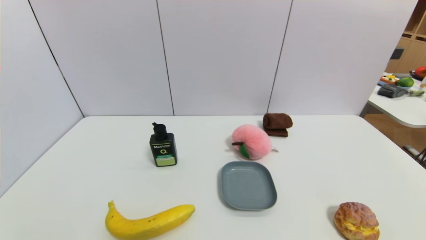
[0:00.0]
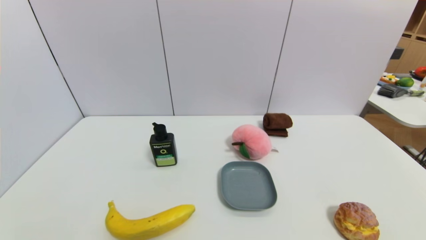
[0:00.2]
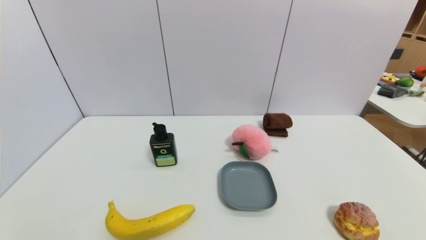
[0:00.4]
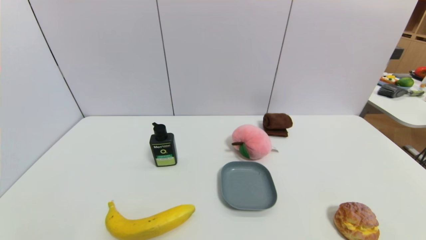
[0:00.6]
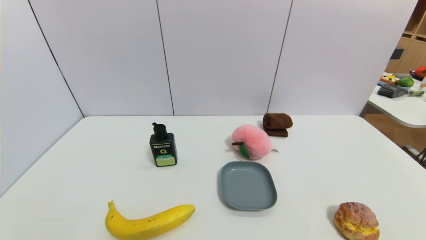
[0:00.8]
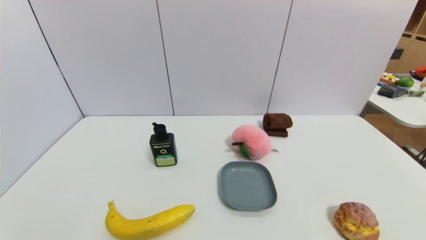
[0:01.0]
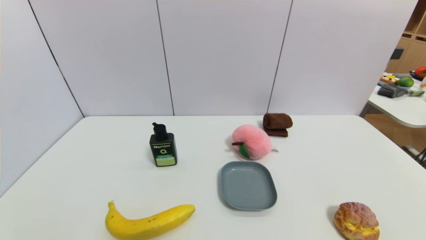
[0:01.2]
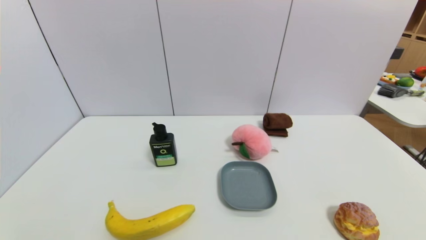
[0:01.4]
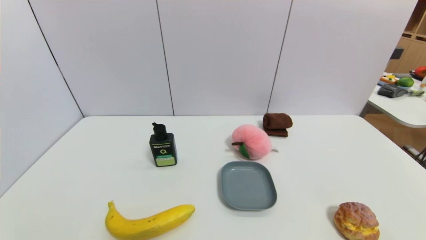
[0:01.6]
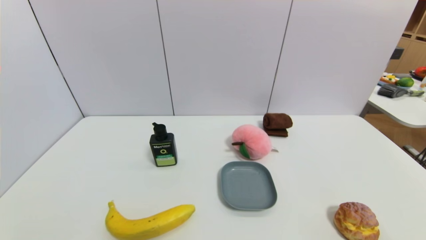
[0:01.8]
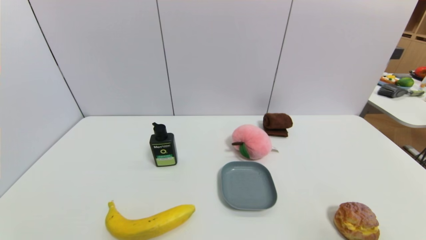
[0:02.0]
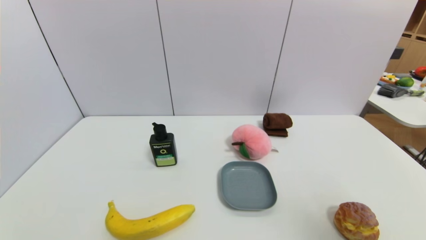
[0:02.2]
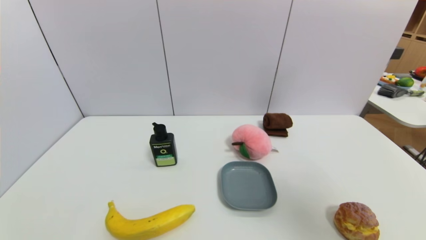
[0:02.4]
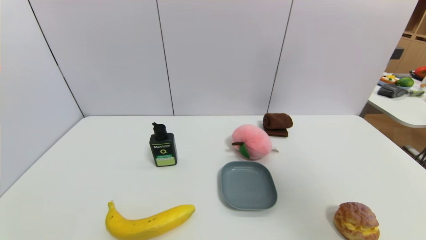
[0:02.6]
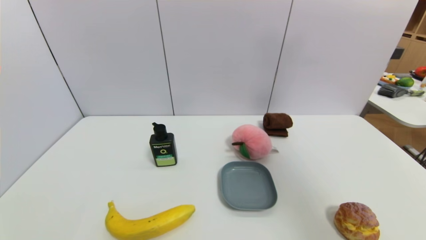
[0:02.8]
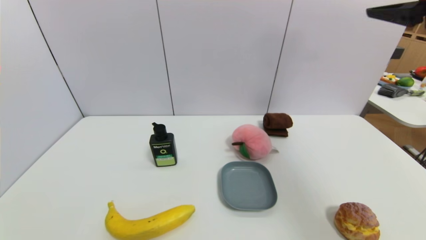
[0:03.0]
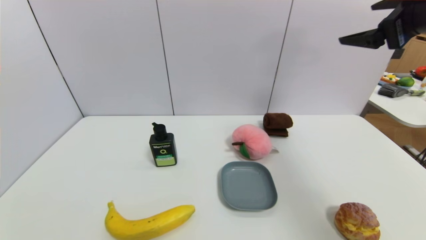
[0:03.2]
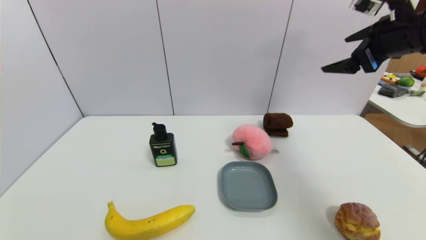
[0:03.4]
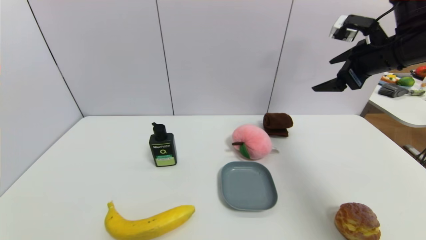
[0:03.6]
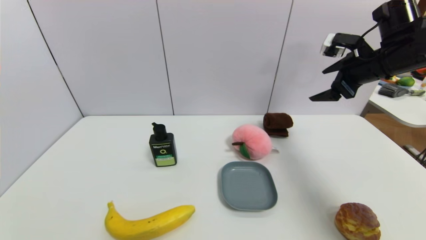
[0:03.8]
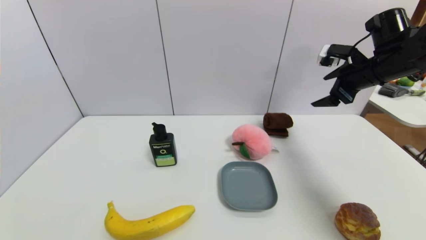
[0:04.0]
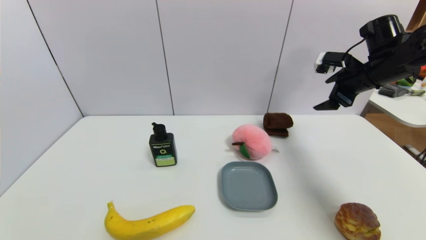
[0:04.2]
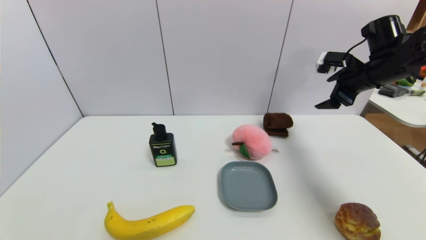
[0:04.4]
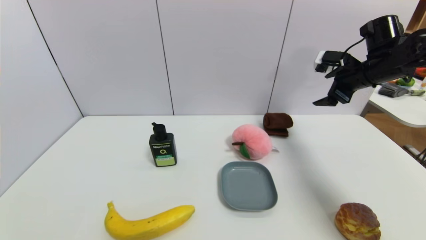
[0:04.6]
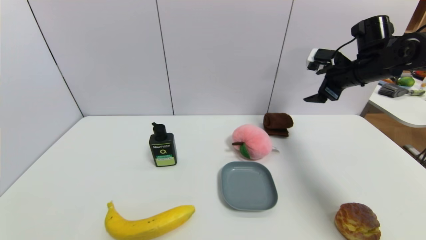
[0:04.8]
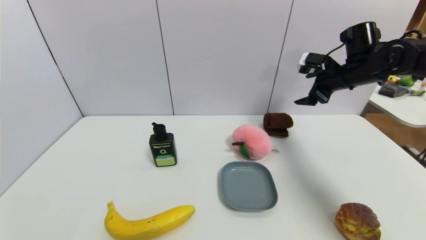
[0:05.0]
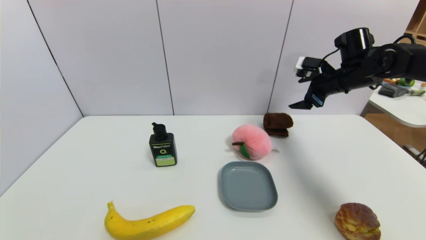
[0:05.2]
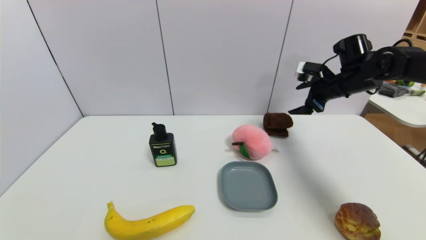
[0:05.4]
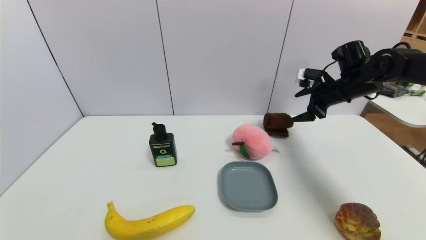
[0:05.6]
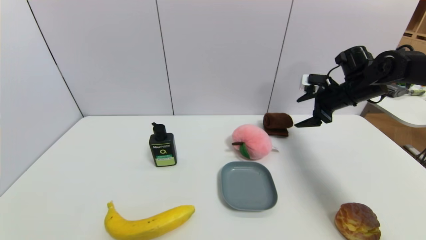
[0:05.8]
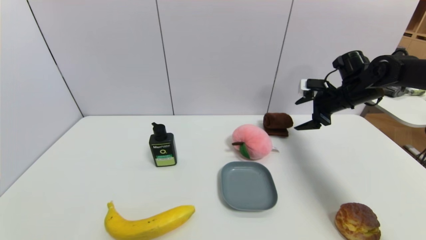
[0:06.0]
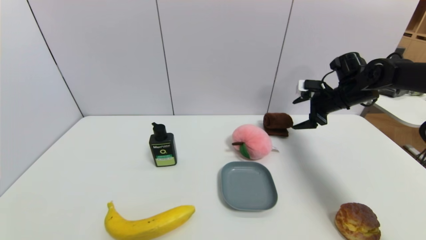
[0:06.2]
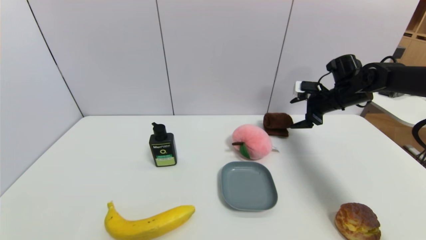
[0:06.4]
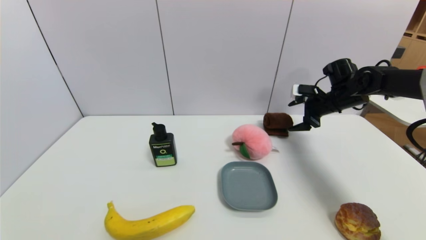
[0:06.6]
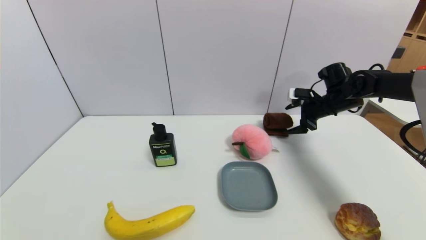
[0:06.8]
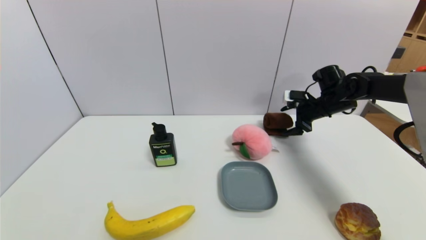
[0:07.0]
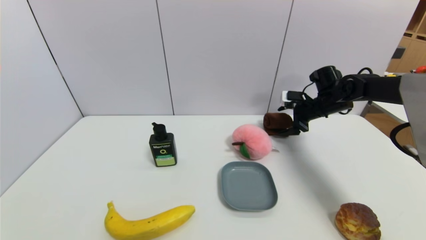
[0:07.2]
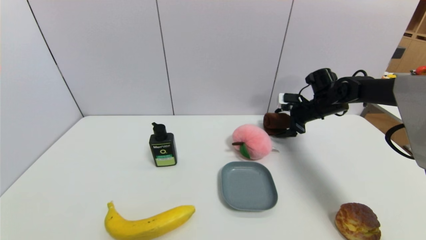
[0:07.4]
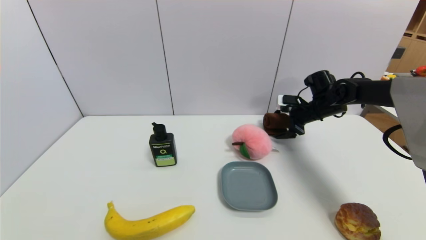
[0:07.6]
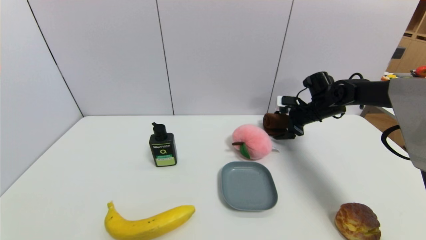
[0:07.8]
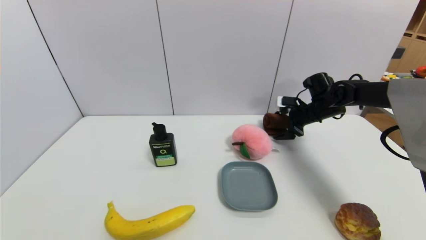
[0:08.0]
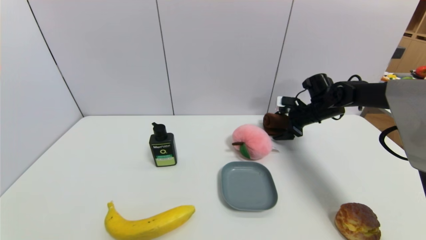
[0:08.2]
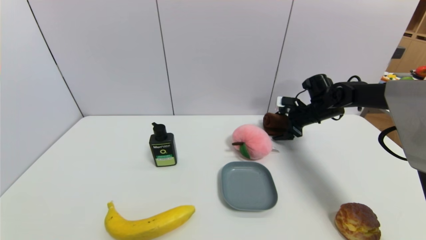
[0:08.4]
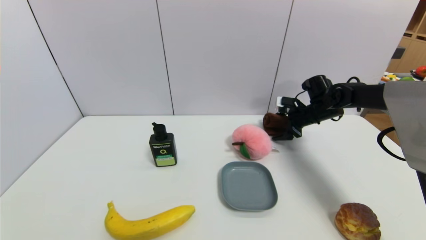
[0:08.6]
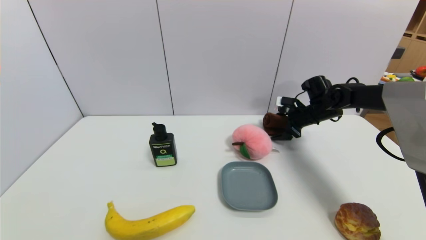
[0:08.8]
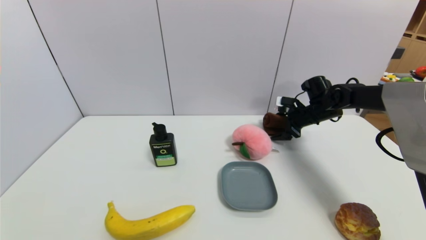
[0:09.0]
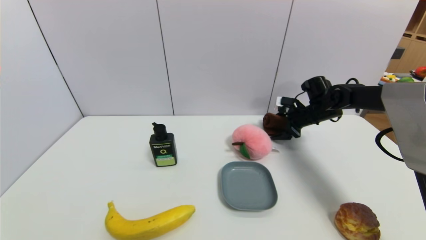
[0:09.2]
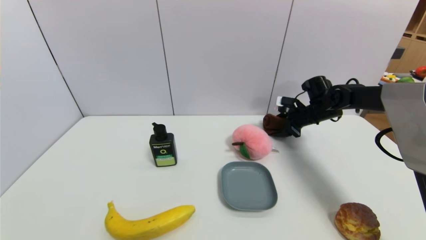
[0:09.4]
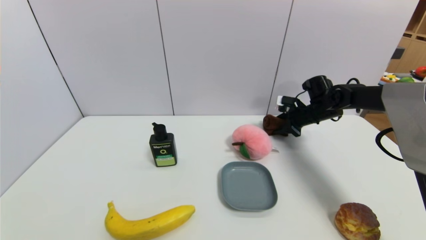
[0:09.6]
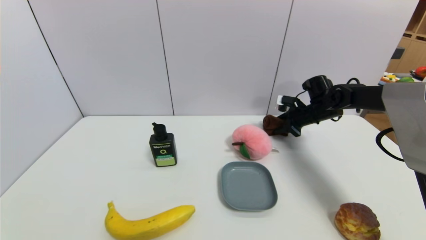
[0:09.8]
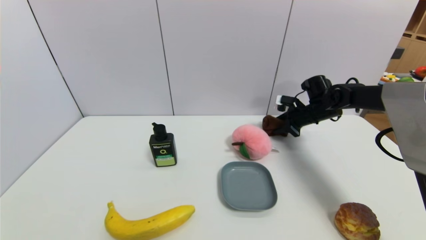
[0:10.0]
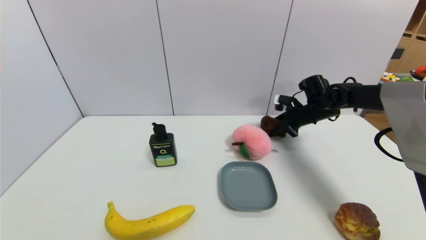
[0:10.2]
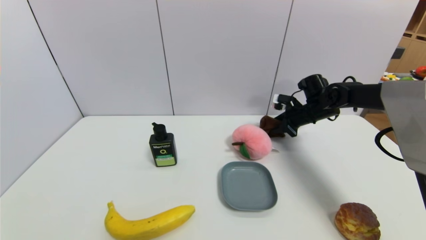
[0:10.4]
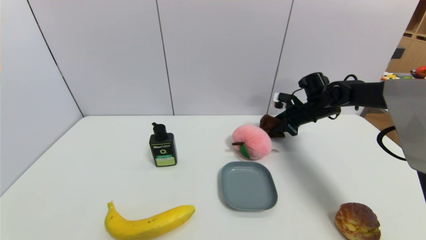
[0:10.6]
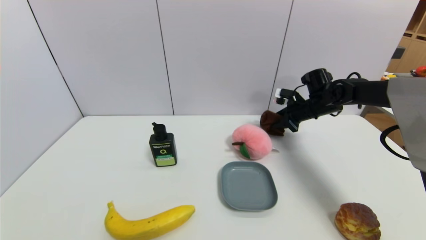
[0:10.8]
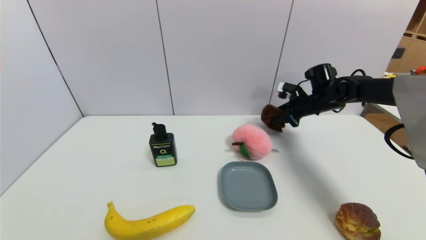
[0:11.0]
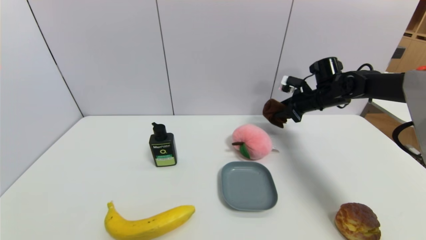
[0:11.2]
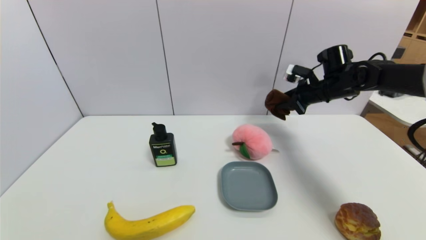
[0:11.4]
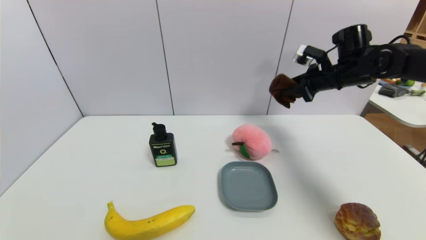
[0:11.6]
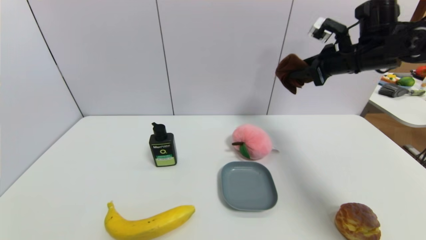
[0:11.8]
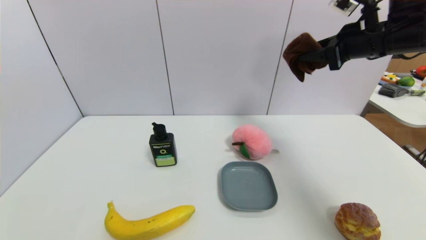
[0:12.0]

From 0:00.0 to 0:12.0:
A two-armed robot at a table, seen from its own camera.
Task of the whole recording: use a gripper to pick the target object and place on the dish.
Step, from 0:00.0 to 0:10.2: Grasp the brown towel with the right gripper.
From 0:01.6 to 0:03.0: The right gripper moves upward and forward, roughly 35 cm.
From 0:03.0 to 0:04.4: The right gripper heads forward and downward, covering about 20 cm.
From 0:04.4 to 0:06.0: The right gripper heads downward, covering approximately 5 cm.
From 0:06.0 to 0:07.6: The right gripper goes approximately 5 cm downward.
From 0:07.6 to 0:09.0: There are only small adjustments of the grippers.
From 0:09.0 to 0:10.4: The right gripper closes its fingers.
From 0:10.4 to 0:12.0: The right gripper shifts about 25 cm upward and backward.

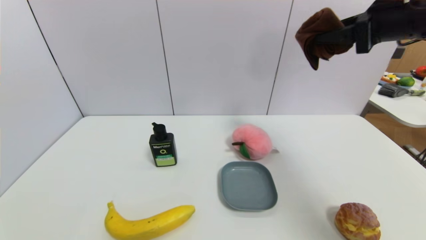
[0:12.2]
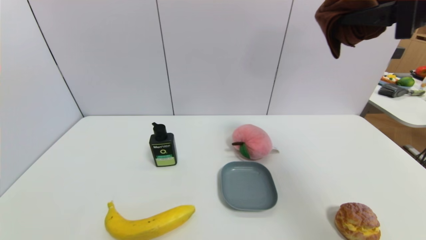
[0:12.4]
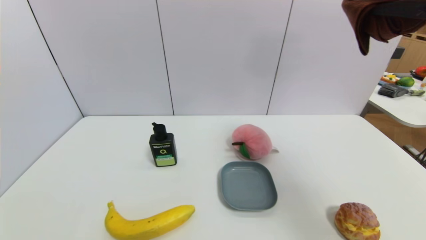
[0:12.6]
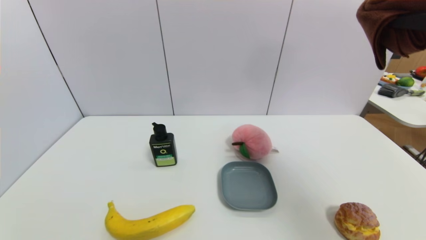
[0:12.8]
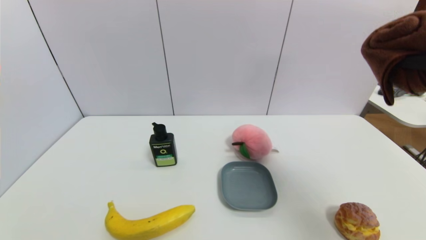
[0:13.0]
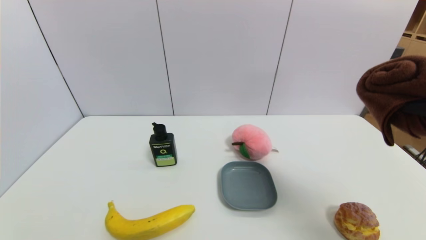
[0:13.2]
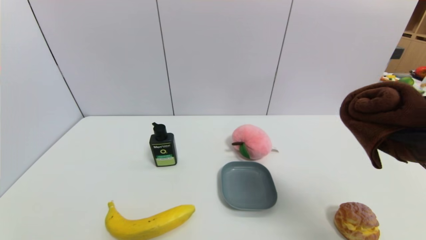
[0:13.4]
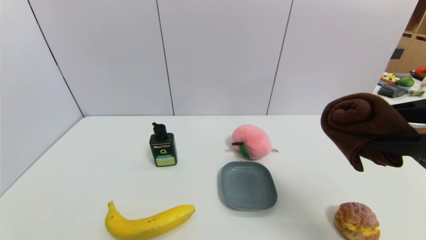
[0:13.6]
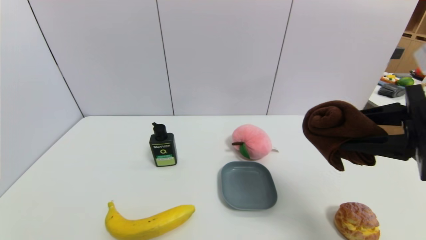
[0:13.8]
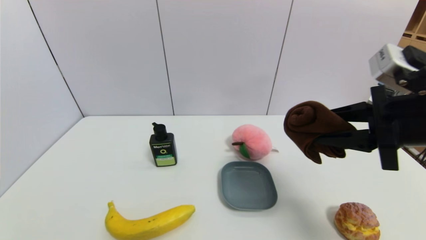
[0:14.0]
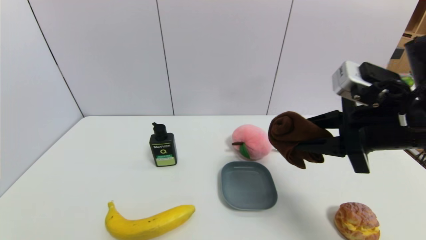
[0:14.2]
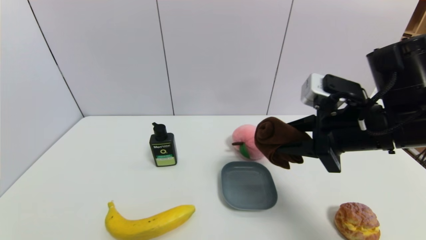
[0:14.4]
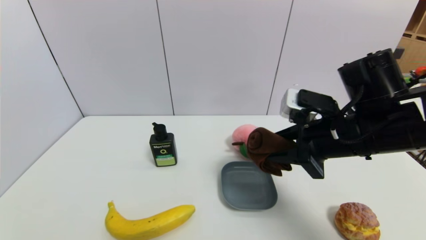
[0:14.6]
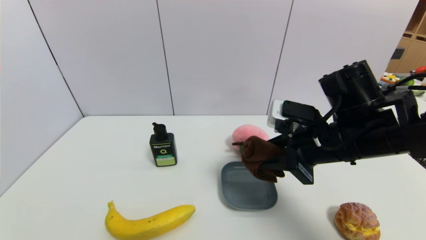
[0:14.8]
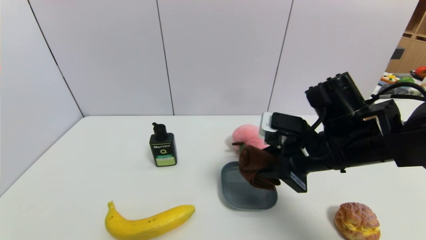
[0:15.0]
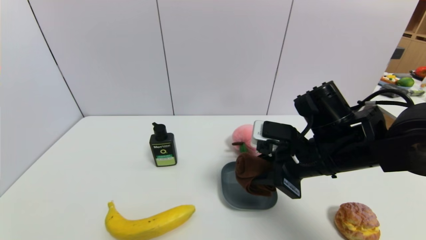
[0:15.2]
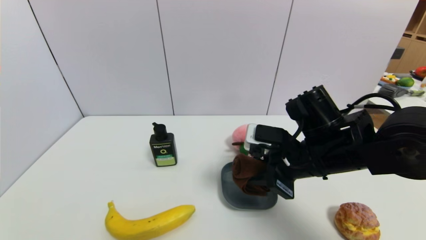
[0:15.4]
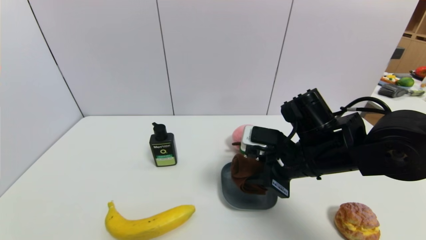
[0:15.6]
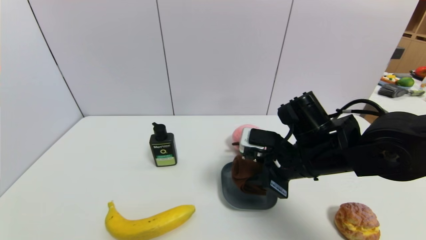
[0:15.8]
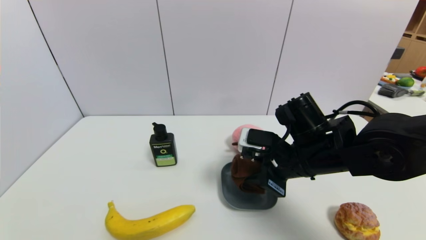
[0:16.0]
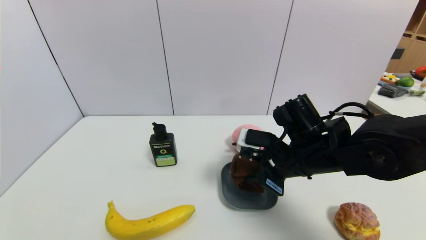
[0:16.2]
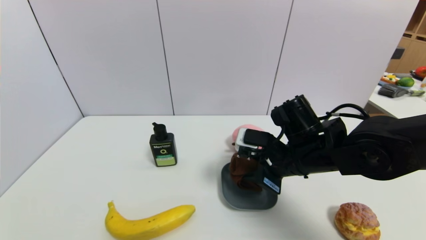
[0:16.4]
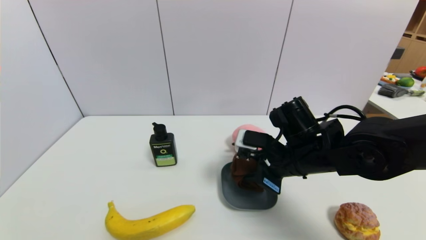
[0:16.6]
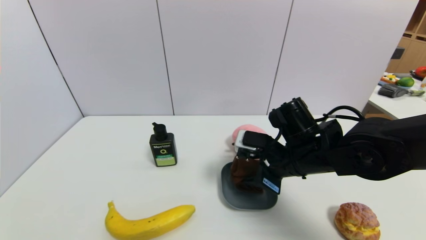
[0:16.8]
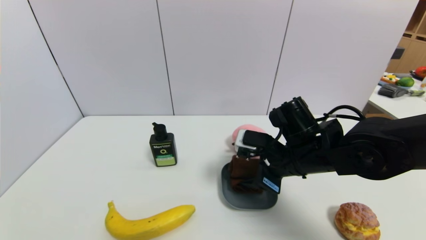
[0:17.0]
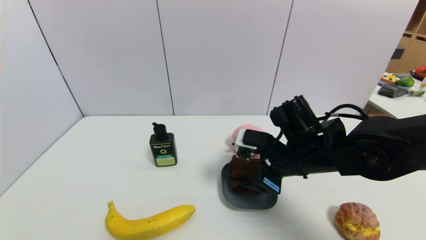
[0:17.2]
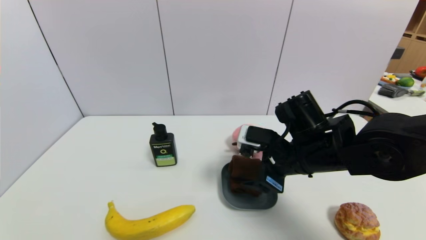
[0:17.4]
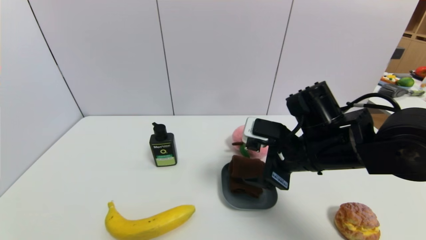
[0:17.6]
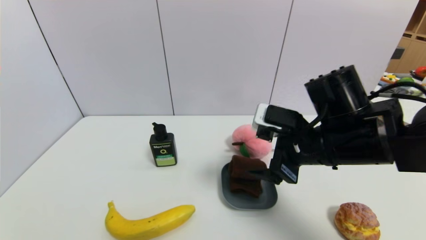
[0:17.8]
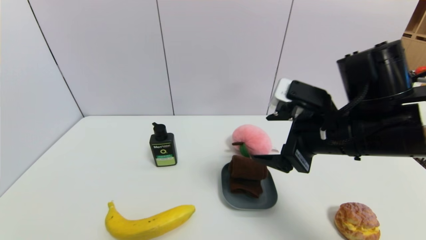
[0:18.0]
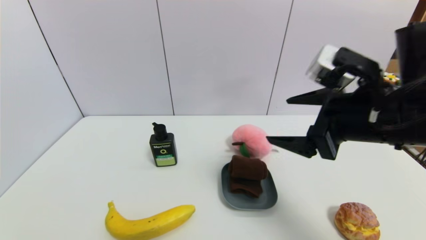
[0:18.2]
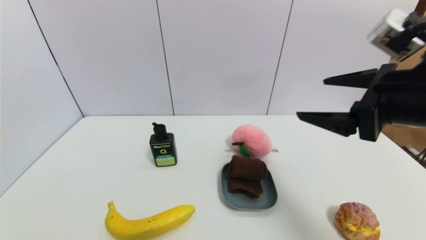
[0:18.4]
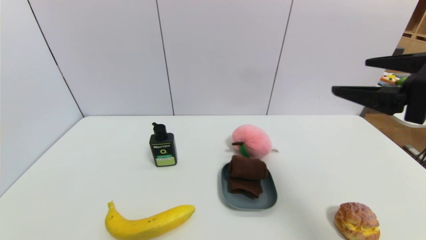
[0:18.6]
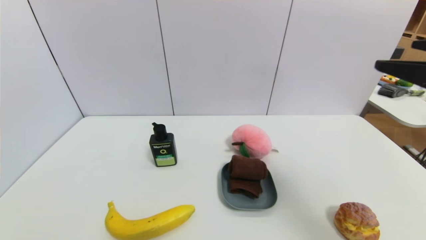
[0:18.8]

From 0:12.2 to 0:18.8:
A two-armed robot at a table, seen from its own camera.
Task of the whole recording: use a gripper to pick the target object and place on the dish.
Step, from 0:12.2 to 0:18.0: Place the brown towel on the dish with the right gripper.
From 0:12.2 to 0:13.8: The right gripper moves backward and downward, roughly 15 cm.
From 0:13.8 to 0:15.4: The right gripper moves to the left, downward and forward, some 20 cm.
From 0:15.4 to 0:17.2: The right gripper opens up.
From 0:17.2 to 0:18.8: The right gripper goes about 25 cm upward, to the right and backward.
